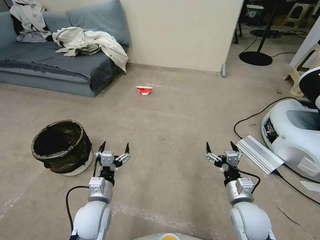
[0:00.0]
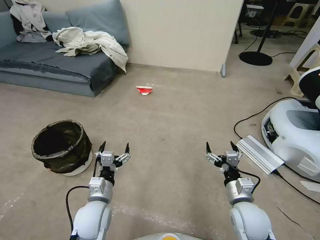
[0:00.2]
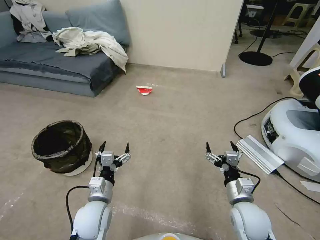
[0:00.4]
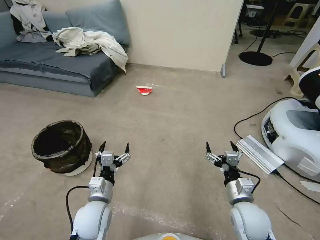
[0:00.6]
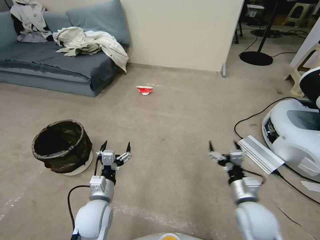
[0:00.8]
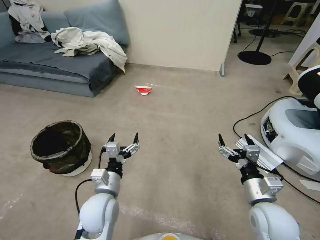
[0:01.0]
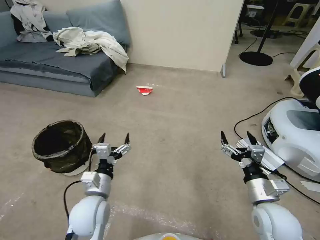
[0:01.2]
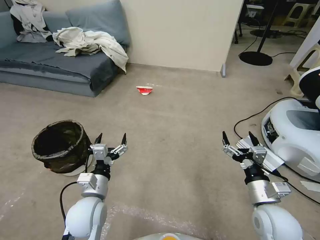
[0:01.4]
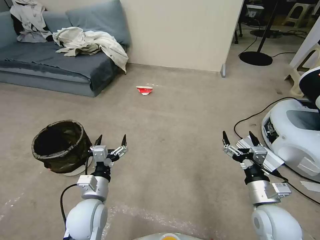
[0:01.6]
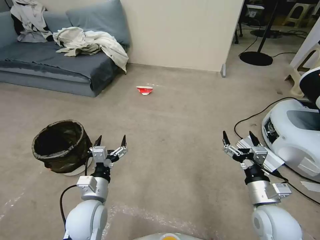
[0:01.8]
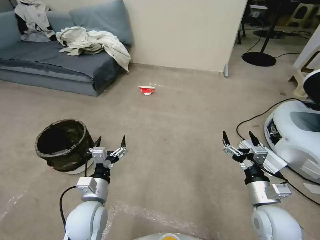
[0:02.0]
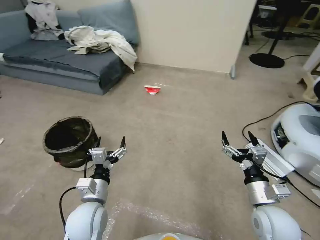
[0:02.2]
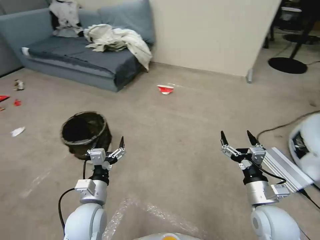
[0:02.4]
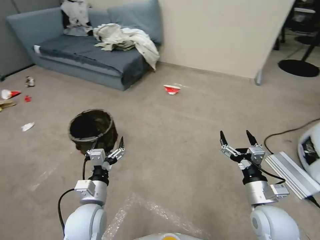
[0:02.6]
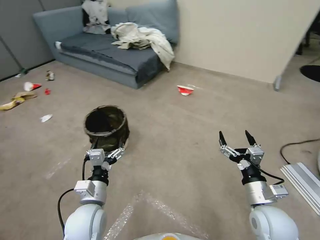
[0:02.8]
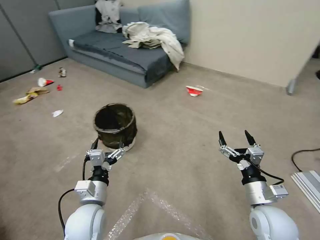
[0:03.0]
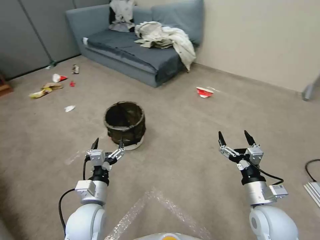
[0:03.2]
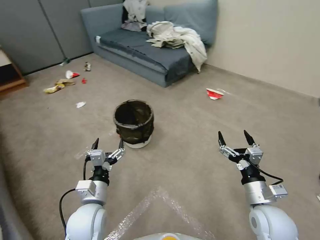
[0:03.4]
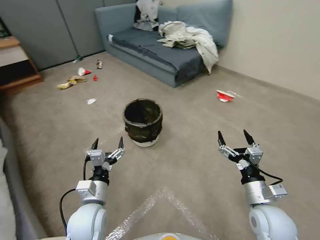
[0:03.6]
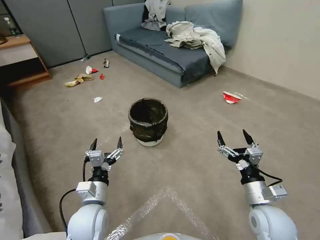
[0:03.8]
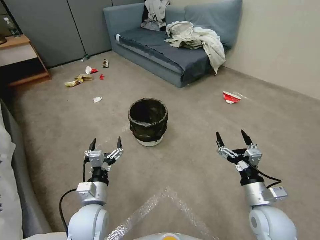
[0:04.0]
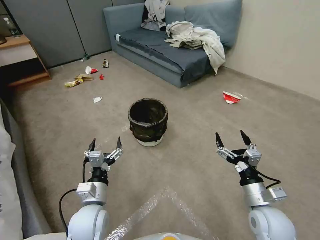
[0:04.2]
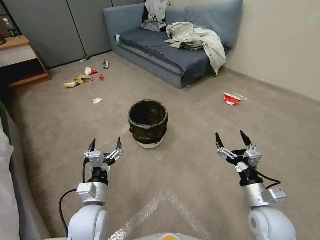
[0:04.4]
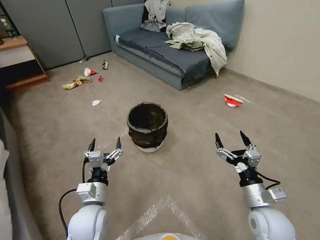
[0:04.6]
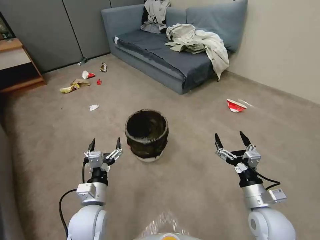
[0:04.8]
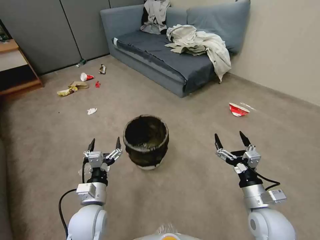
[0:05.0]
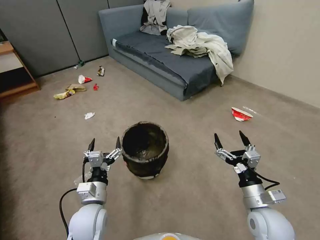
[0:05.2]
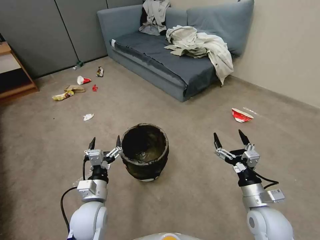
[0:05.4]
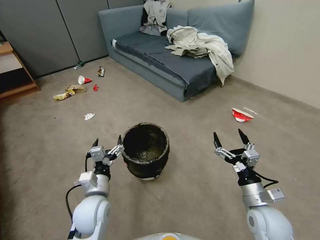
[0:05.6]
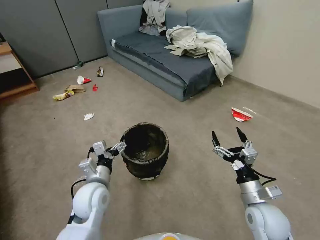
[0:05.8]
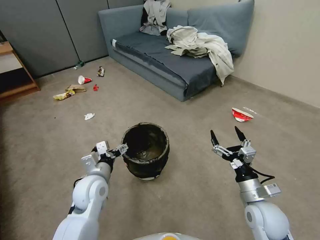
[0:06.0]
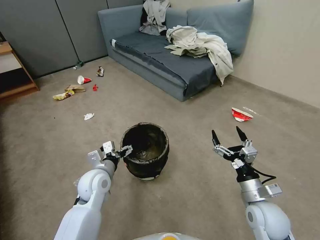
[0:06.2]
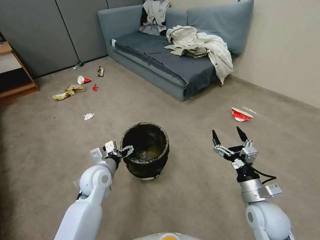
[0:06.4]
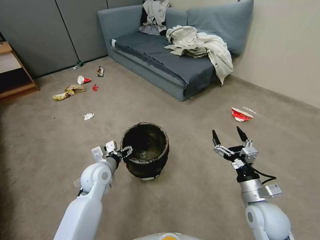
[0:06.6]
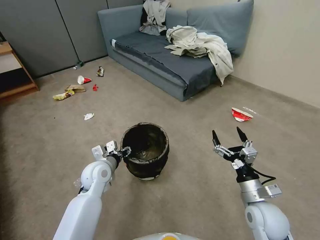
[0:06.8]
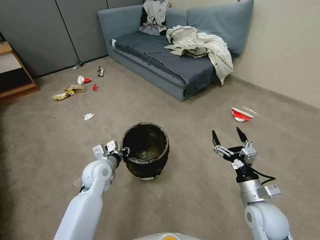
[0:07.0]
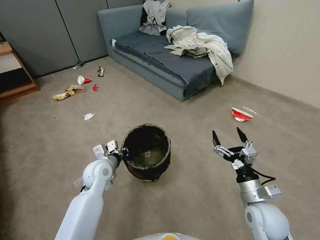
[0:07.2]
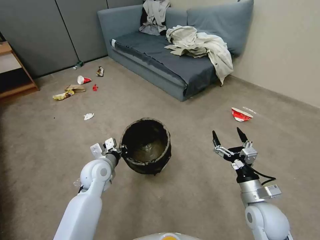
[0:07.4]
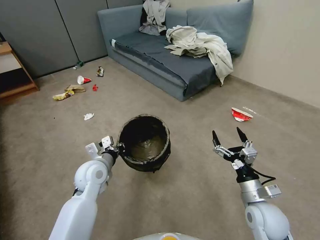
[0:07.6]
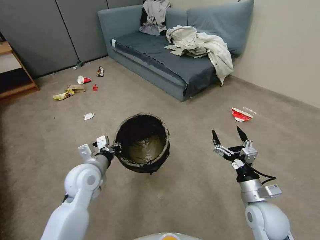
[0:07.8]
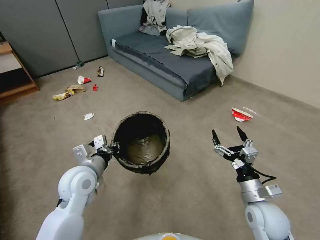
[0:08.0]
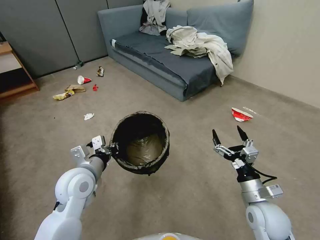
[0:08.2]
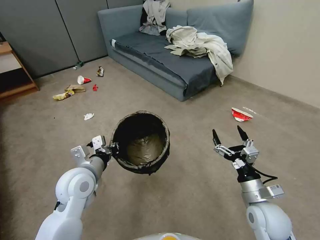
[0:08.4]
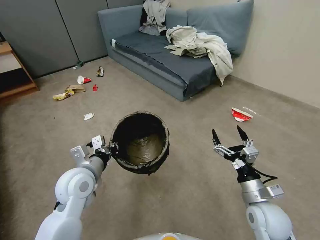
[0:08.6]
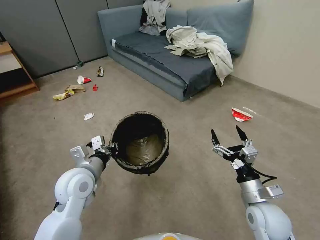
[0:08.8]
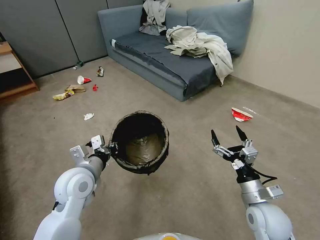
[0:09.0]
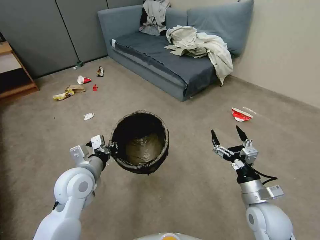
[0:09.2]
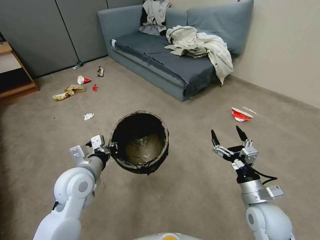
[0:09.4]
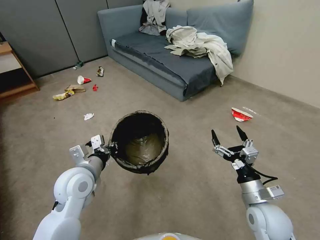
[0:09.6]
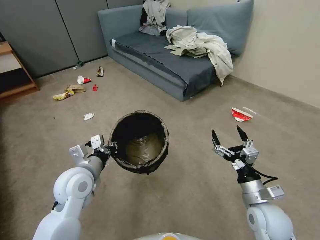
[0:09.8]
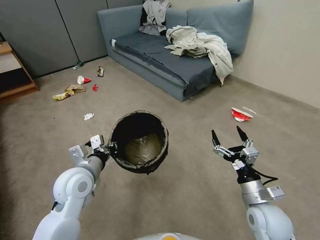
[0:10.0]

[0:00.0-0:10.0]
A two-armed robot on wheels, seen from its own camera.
Task of the whole recording: Pick up the trash can from the floor.
4.2 to 5.8 s: The left gripper goes approximately 5 cm forward.
5.8 to 7.2 s: The left gripper travels forward by approximately 10 cm, and closes up.
7.2 to 8.6 s: The left gripper is displaced upward and backward by approximately 10 cm.
8.6 to 10.0 s: The two grippers keep their place.

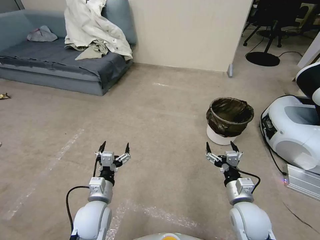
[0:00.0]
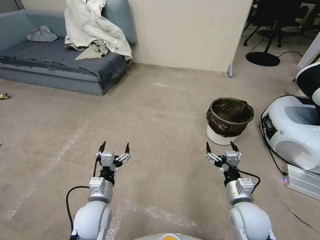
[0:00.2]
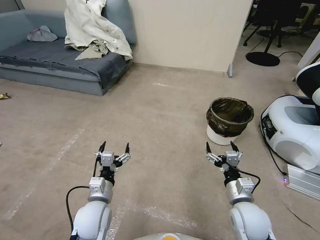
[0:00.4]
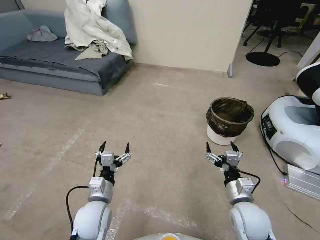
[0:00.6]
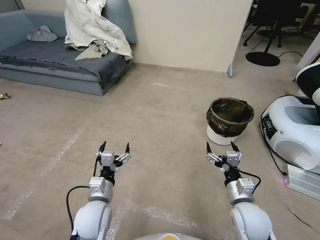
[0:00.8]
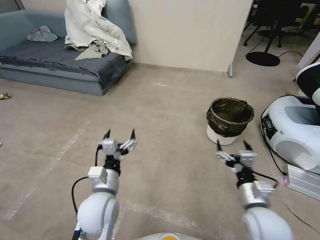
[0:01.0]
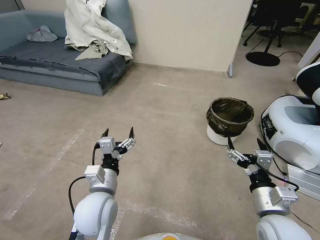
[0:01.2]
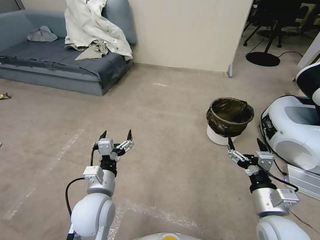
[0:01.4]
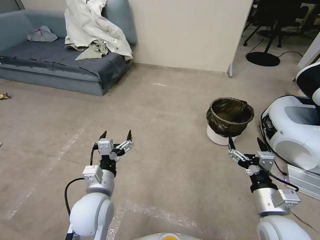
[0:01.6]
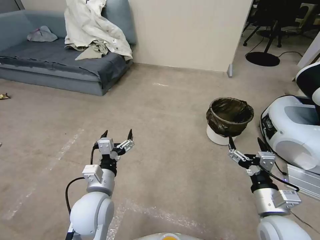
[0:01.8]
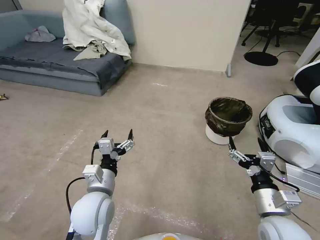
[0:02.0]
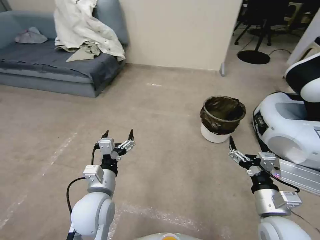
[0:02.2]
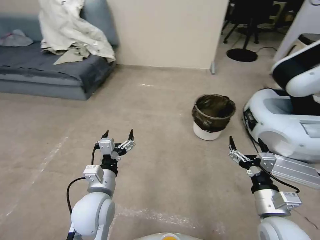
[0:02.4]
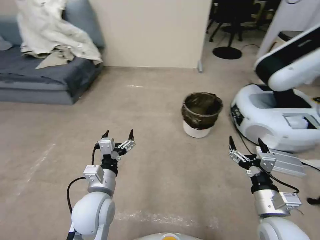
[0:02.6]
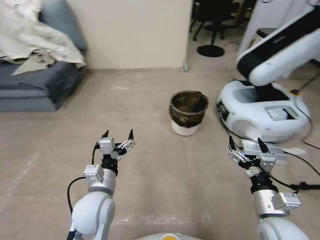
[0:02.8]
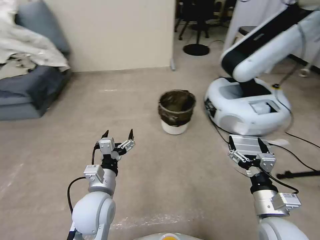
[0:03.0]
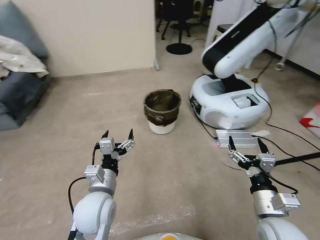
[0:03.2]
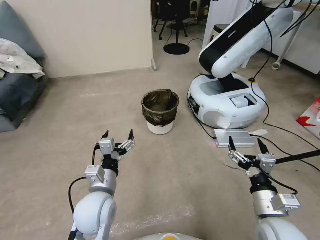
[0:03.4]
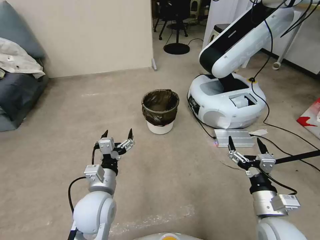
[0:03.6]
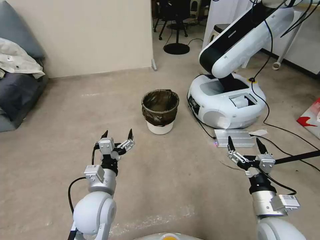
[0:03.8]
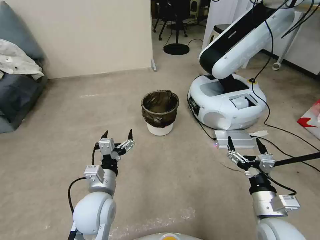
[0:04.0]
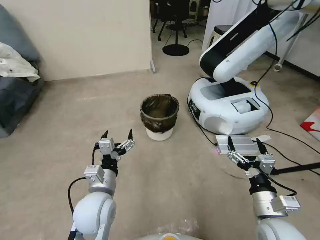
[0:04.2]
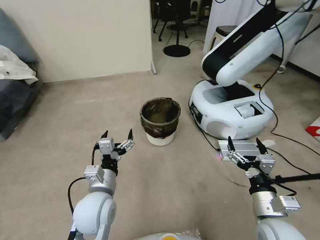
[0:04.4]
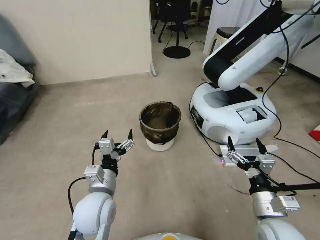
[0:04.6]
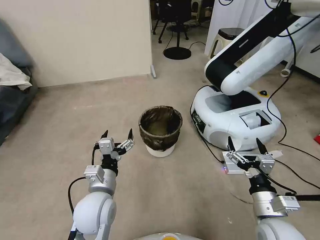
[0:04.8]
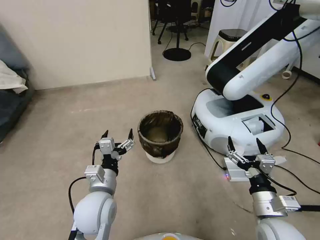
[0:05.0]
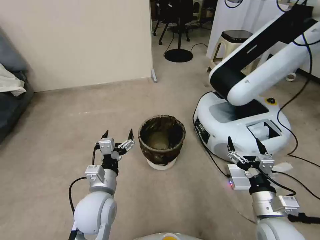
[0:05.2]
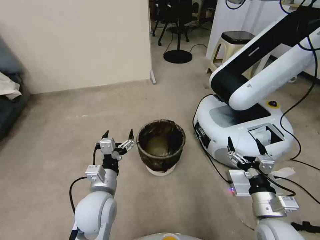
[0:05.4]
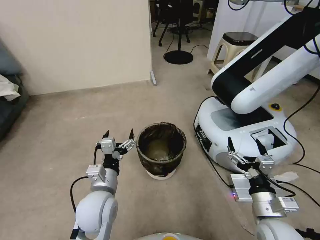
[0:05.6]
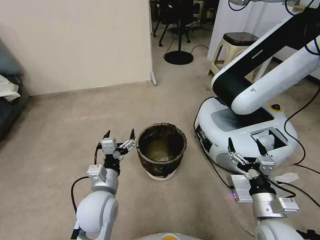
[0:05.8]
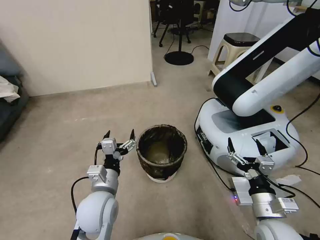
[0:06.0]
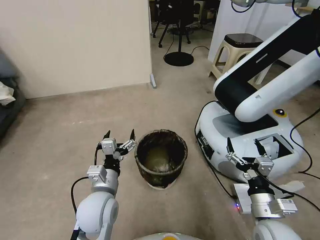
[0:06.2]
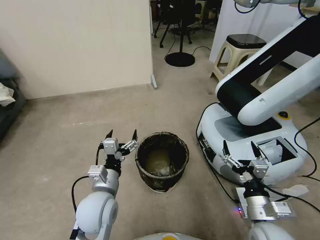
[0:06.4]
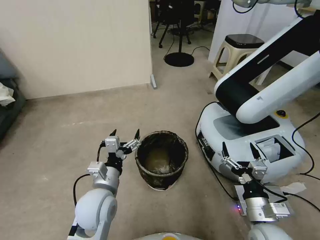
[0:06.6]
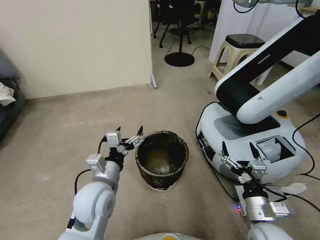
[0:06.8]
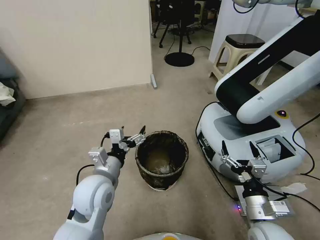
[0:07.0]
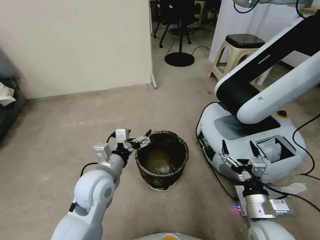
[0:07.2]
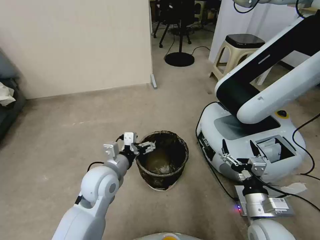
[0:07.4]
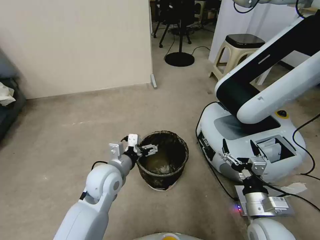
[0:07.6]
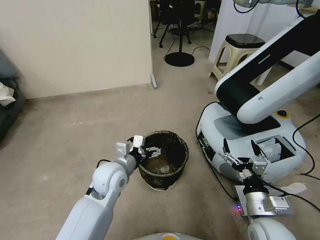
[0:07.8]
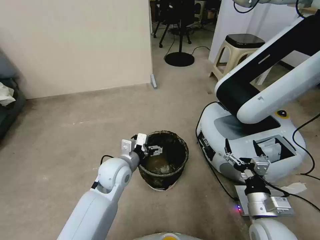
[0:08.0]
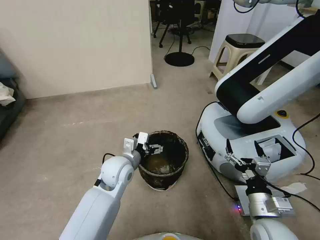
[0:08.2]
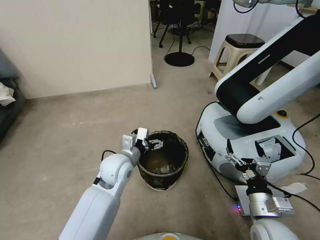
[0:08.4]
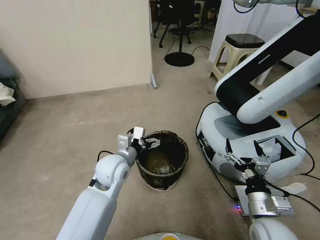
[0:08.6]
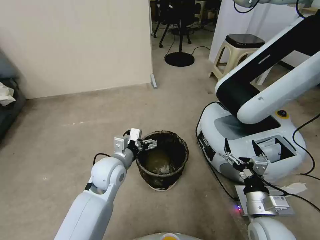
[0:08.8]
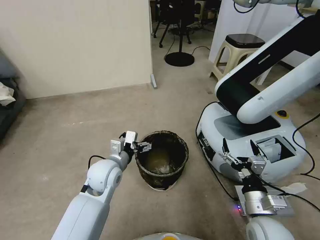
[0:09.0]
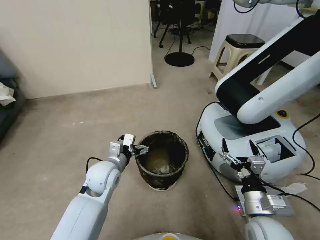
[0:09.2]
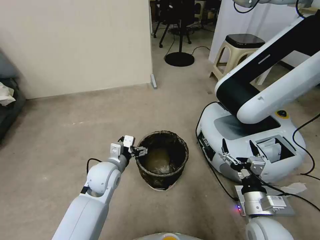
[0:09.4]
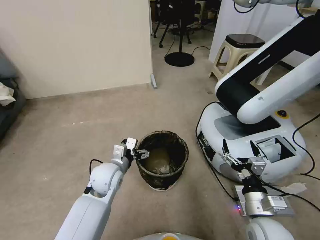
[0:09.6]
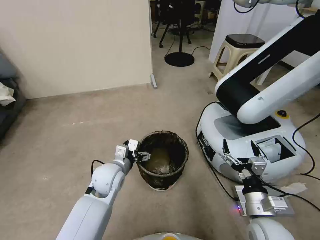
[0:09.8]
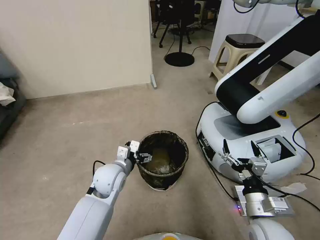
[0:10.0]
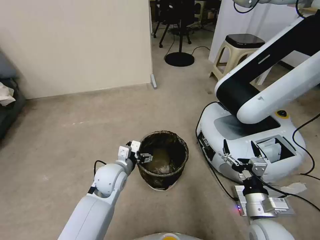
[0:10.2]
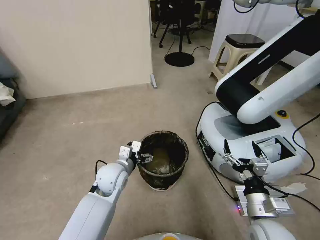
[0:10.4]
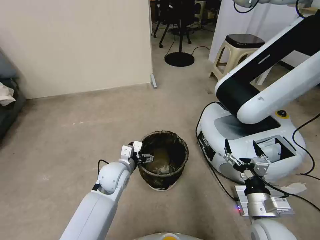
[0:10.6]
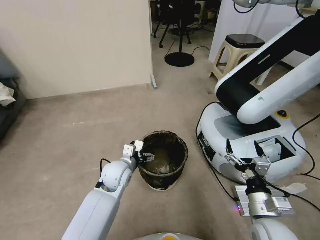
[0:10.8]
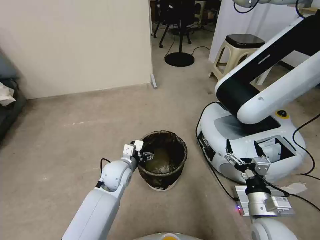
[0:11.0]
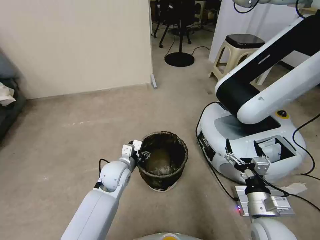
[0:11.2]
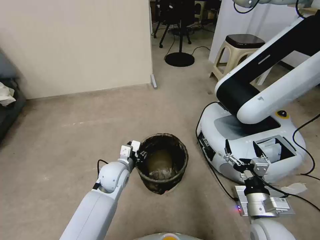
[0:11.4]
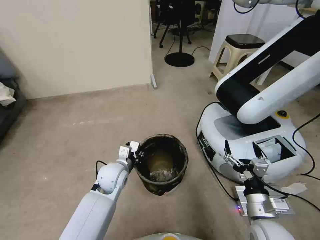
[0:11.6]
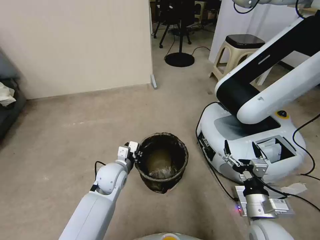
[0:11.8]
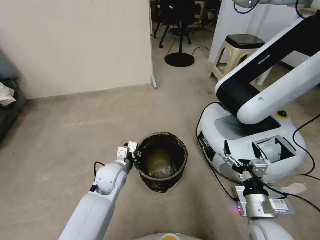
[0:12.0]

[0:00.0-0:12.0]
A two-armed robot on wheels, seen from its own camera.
Task of the whole recording: Pick up the trash can from the floor.
6.0 to 7.6 s: The left gripper travels forward by roughly 5 cm.
7.6 to 9.0 s: The grippers stay close to where they were, moving slightly.
9.0 to 10.4 s: The grippers stay close to where they were, moving slightly.
10.4 to 12.0 s: The left gripper closes.

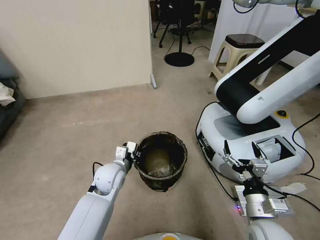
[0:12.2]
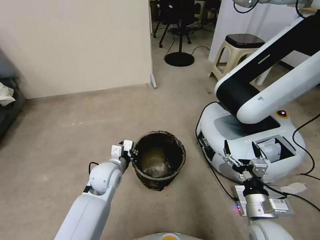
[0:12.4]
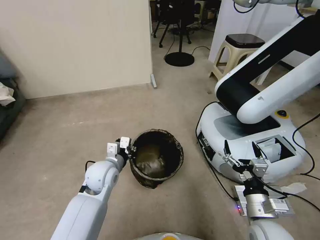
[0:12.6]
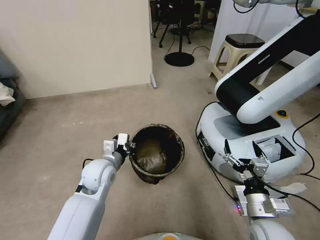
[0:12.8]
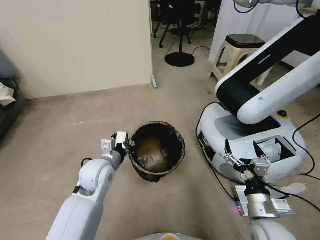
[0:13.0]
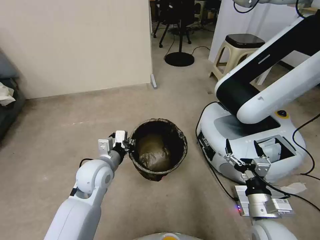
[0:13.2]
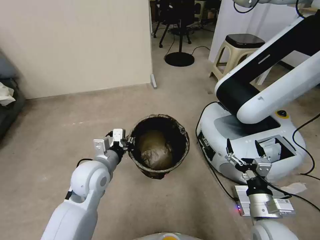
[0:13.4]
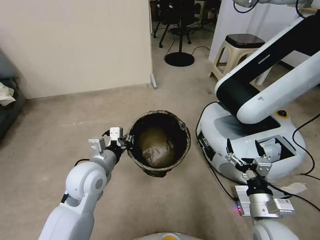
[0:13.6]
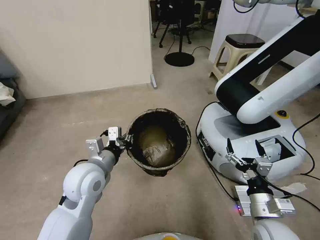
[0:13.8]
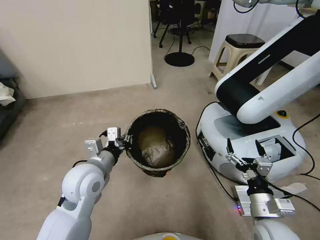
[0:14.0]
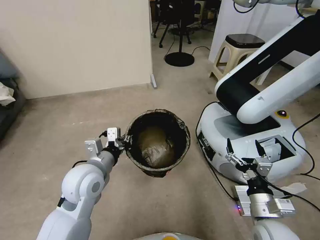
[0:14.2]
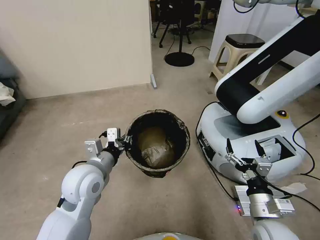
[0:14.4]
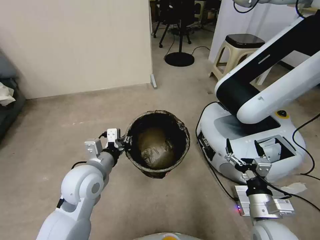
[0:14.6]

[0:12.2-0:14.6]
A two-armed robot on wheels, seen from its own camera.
Task of the whole recording: Pick up the trash can from the floor.
12.2 to 13.4 s: The left gripper shifts some 10 cm upward.
13.4 to 14.6 s: There are only small adjustments of the grippers.
